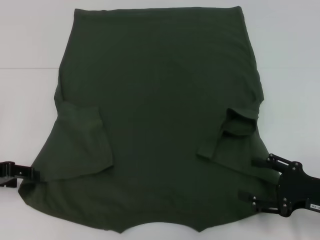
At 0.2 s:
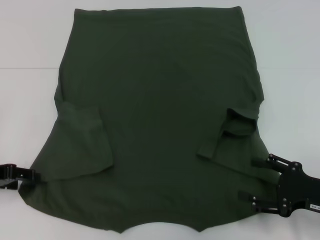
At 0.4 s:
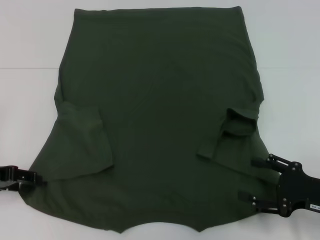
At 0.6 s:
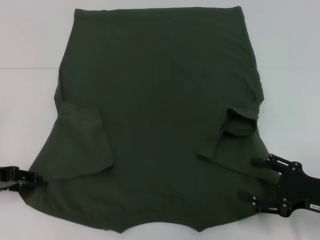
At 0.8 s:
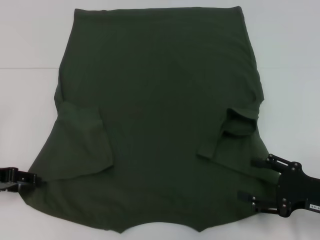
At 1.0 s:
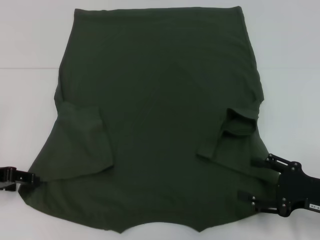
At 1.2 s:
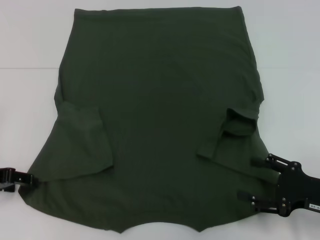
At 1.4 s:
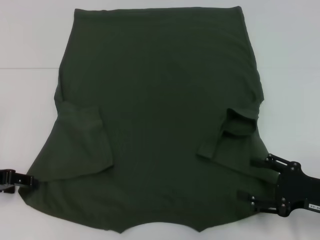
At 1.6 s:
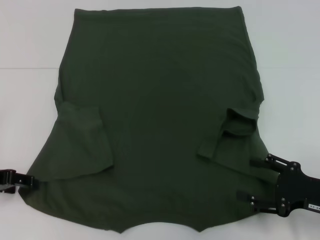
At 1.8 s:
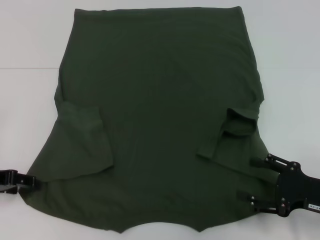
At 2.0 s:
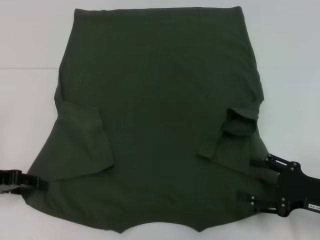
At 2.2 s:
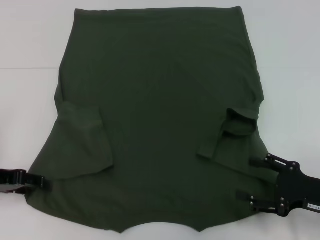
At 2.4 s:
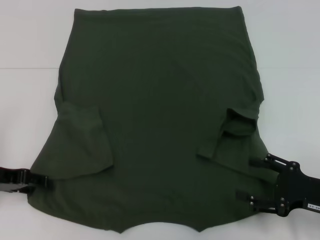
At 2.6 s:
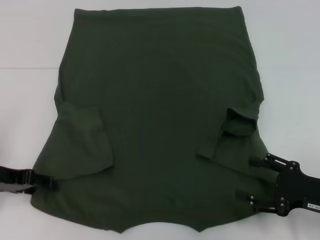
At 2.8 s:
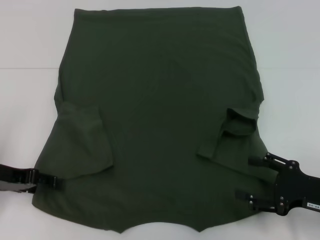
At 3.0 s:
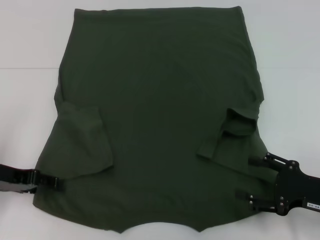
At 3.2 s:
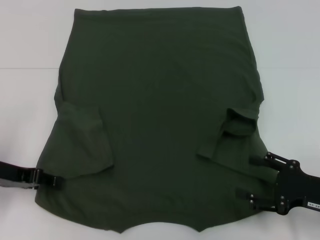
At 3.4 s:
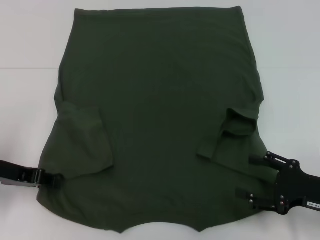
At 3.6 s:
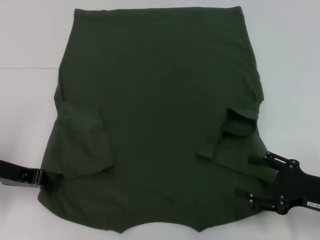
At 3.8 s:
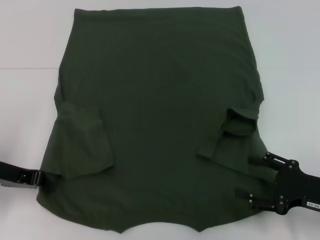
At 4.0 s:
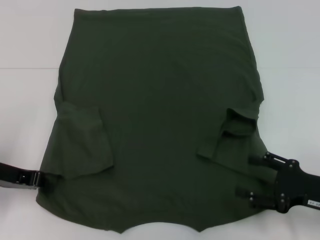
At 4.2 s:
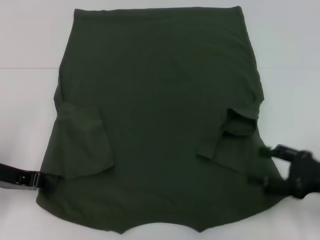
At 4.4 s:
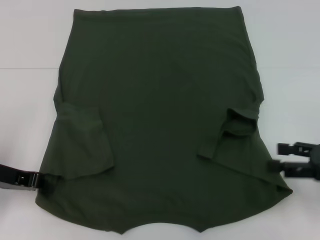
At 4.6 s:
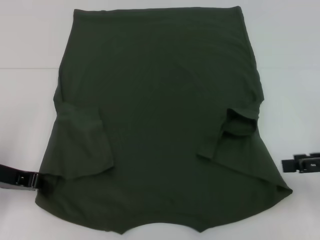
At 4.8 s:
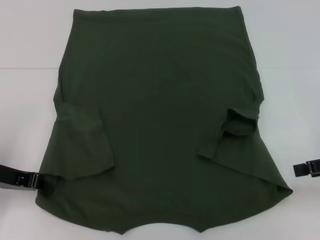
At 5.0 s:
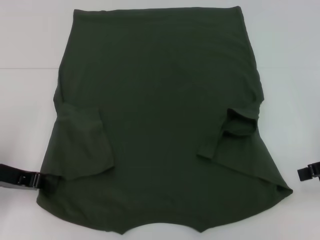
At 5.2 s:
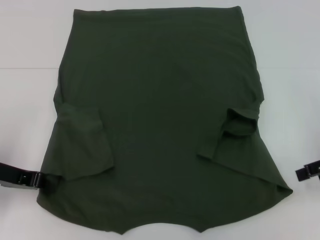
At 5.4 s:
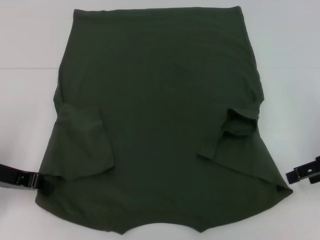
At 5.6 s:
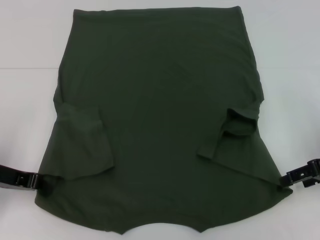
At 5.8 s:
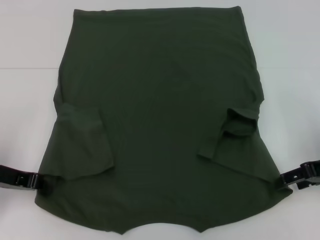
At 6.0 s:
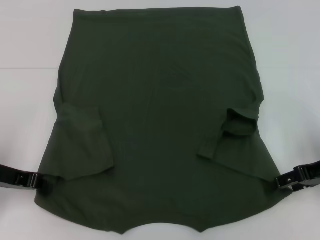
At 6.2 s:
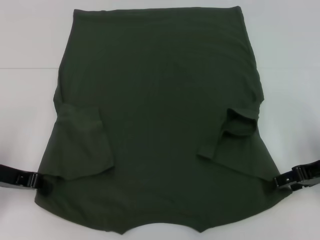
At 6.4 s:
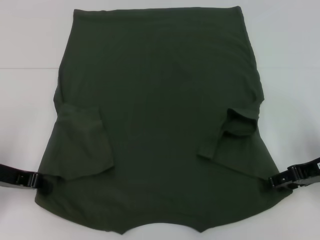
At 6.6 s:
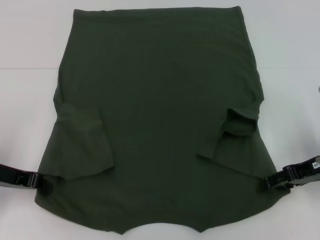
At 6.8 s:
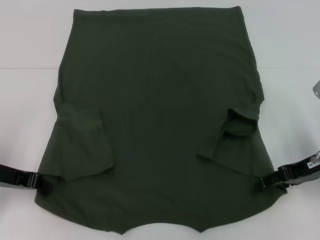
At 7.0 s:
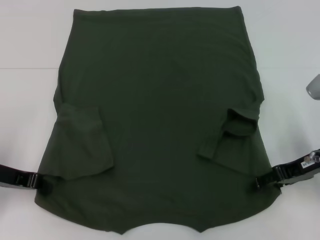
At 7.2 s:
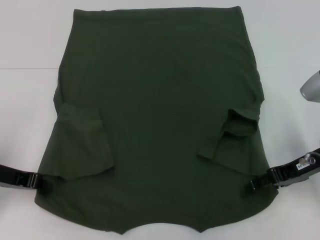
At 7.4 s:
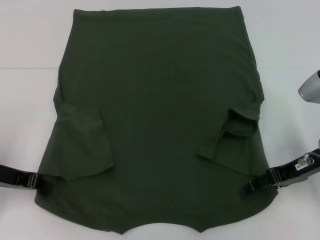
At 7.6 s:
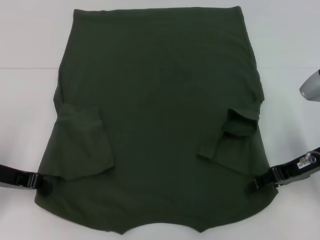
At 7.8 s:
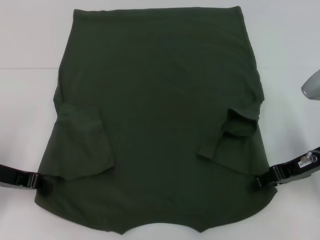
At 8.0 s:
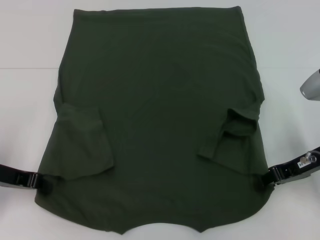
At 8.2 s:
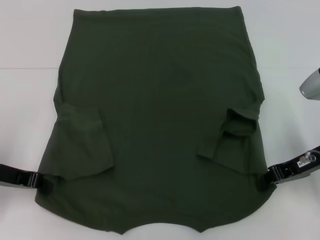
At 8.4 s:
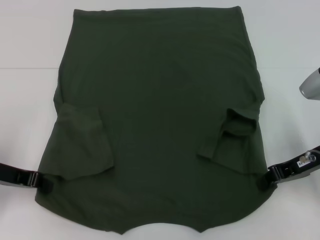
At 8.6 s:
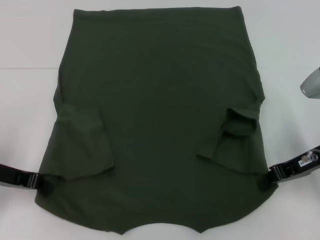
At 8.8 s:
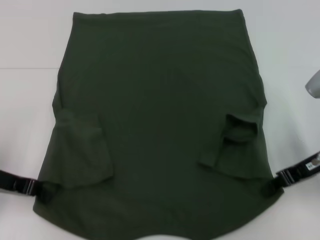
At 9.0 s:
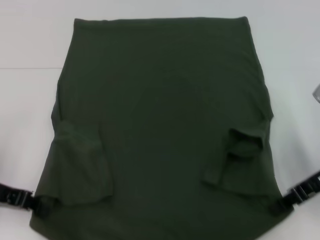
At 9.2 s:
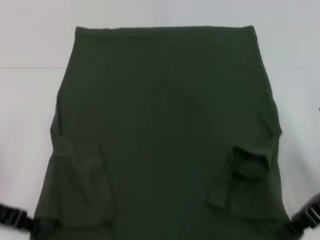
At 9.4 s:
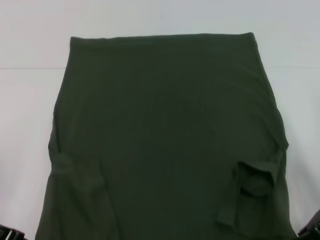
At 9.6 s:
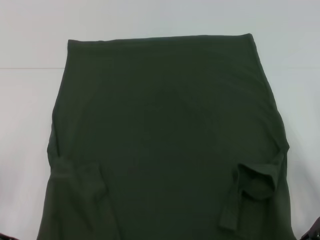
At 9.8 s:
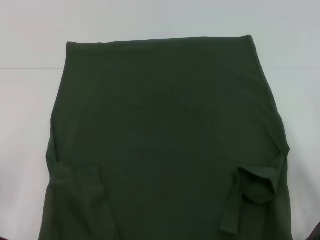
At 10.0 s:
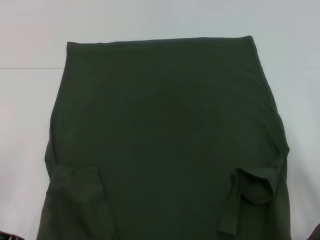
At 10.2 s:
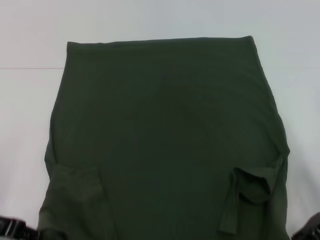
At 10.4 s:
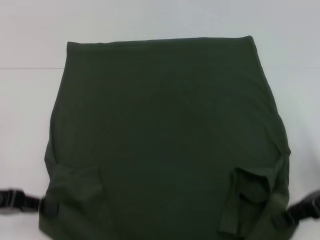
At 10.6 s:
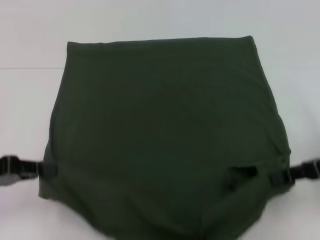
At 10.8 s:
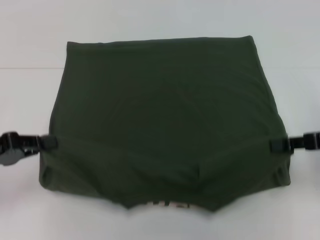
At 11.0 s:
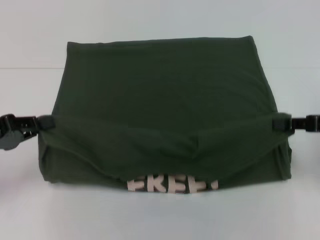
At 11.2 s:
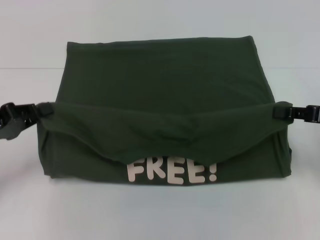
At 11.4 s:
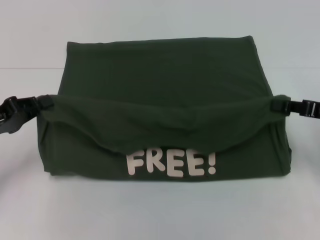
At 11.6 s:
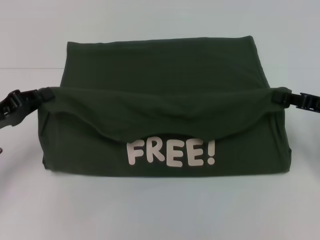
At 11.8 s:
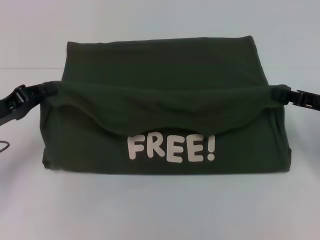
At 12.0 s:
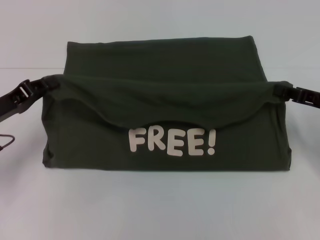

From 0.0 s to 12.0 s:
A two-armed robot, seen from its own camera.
Step, from 0.0 s to 4.4 s: Grab the bottom left corner with your left hand.
Step, from 4.6 s to 8.6 s: Grab the bottom right corner with your right hand.
From 0.0 s to 1.6 s: Neither gripper changes place.
From 1.6 s to 3.0 s: The grippers stay close to where they were, moving slightly.
From 3.0 s to 4.4 s: The left gripper closes up. Meanwhile the right gripper travels upward by roughly 5 cm.
From 4.4 s to 6.0 s: The right gripper moves forward, roughly 5 cm.
From 6.0 s to 7.6 s: The grippers make only small movements.
From 7.6 s to 9.0 s: The right gripper closes its fingers.
From 10.4 s to 12.0 s: Both grippers move forward, about 5 cm.

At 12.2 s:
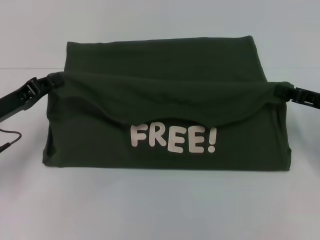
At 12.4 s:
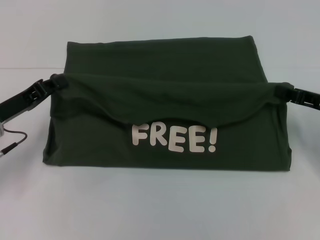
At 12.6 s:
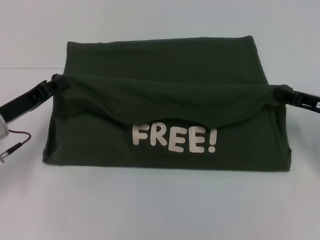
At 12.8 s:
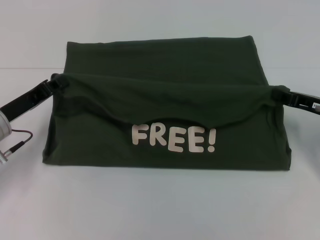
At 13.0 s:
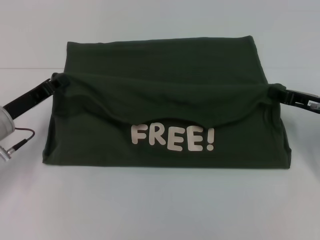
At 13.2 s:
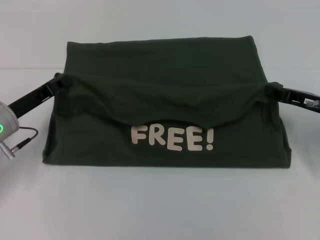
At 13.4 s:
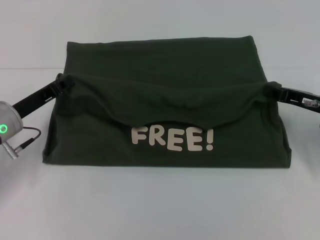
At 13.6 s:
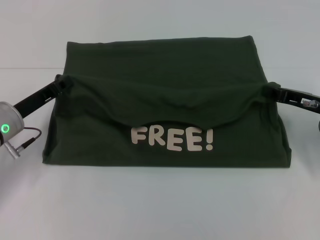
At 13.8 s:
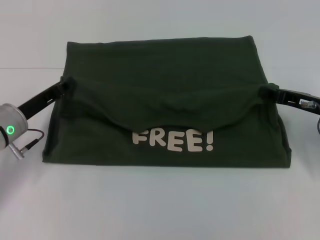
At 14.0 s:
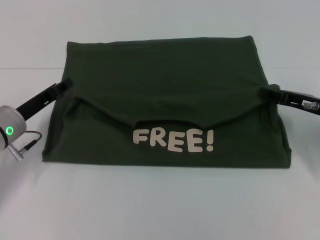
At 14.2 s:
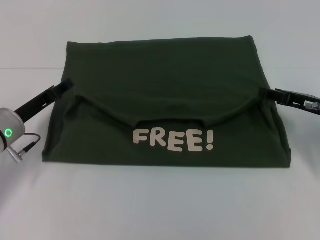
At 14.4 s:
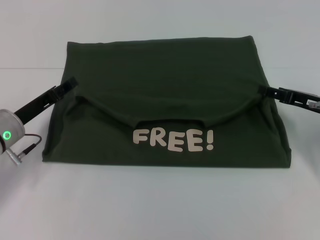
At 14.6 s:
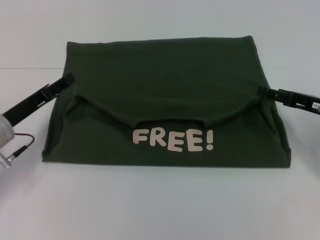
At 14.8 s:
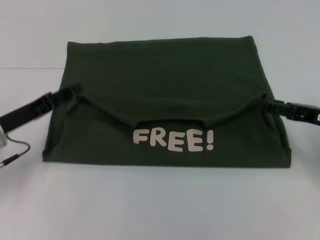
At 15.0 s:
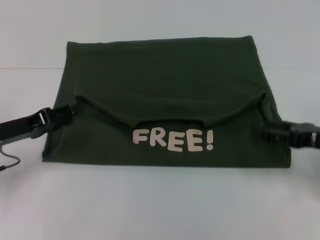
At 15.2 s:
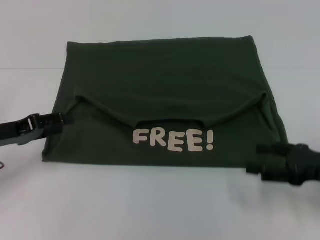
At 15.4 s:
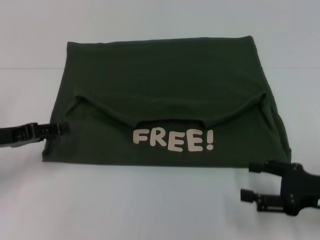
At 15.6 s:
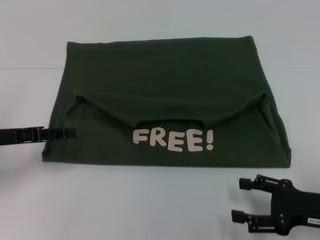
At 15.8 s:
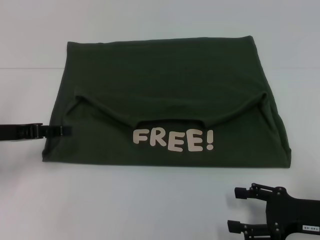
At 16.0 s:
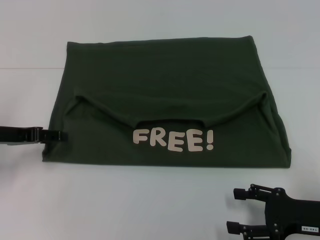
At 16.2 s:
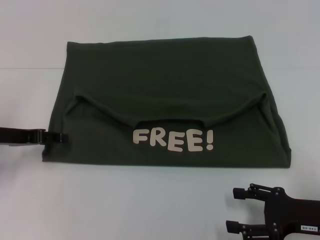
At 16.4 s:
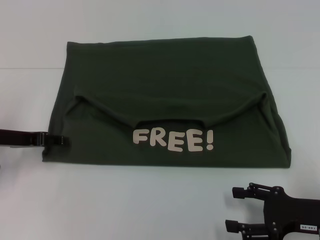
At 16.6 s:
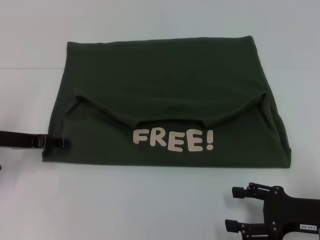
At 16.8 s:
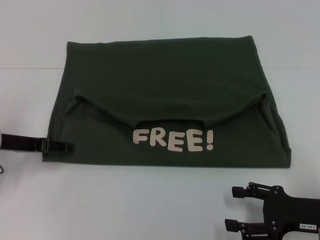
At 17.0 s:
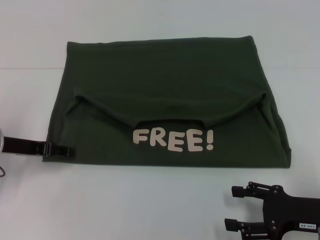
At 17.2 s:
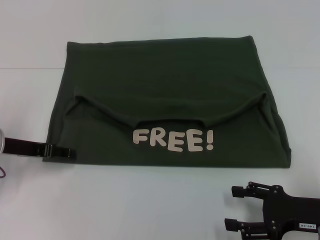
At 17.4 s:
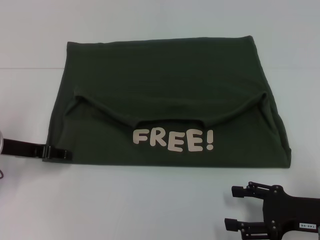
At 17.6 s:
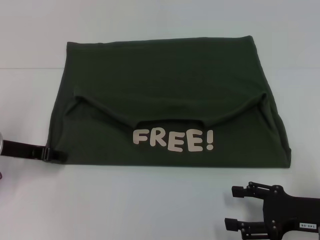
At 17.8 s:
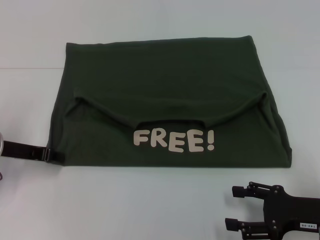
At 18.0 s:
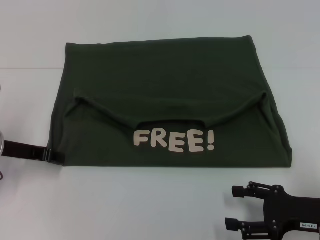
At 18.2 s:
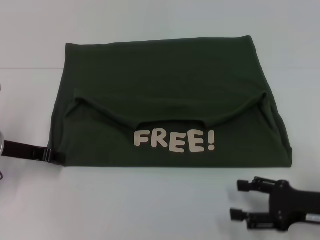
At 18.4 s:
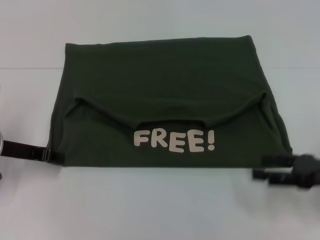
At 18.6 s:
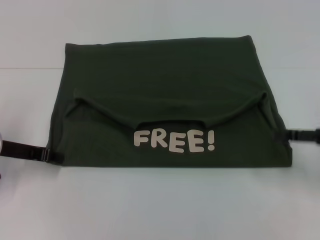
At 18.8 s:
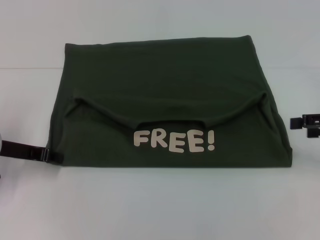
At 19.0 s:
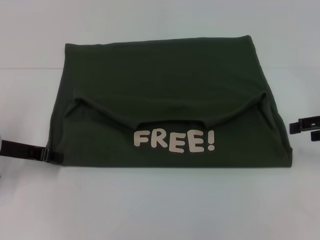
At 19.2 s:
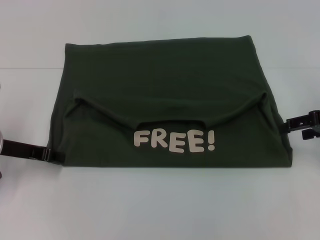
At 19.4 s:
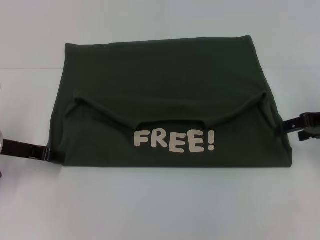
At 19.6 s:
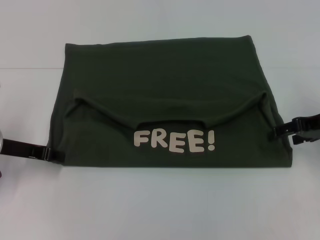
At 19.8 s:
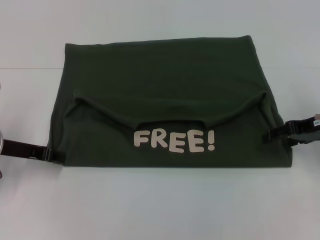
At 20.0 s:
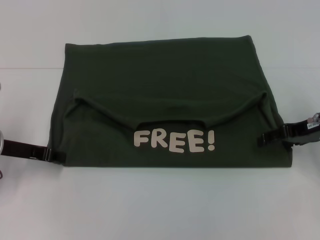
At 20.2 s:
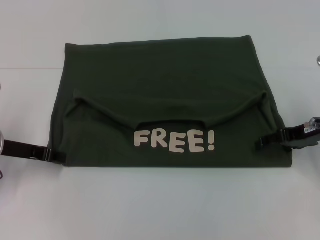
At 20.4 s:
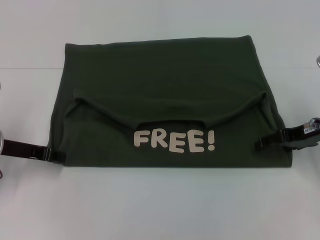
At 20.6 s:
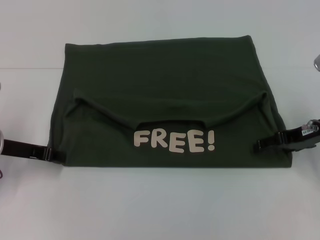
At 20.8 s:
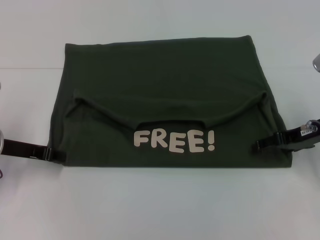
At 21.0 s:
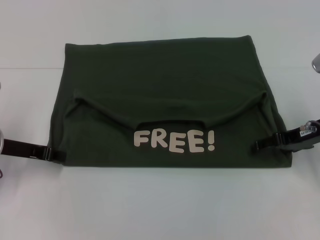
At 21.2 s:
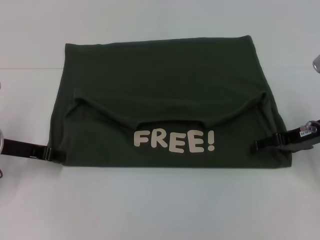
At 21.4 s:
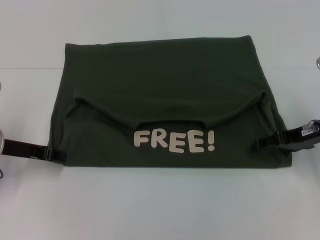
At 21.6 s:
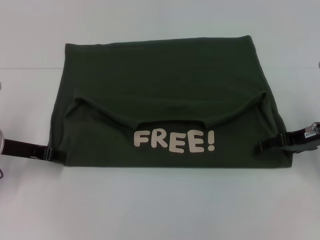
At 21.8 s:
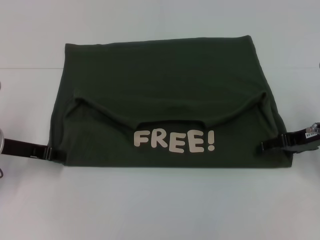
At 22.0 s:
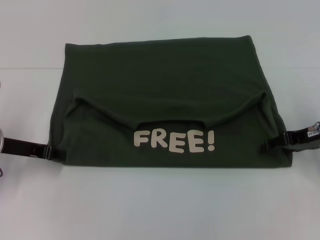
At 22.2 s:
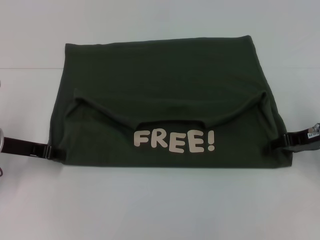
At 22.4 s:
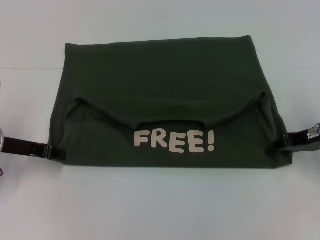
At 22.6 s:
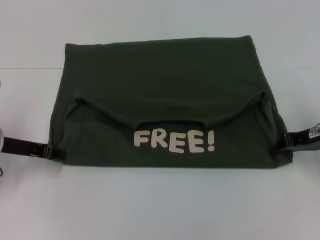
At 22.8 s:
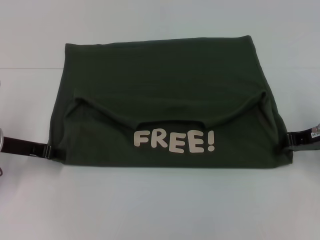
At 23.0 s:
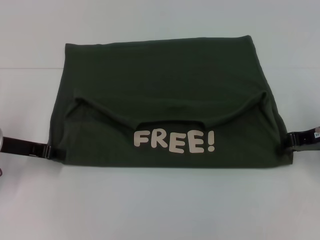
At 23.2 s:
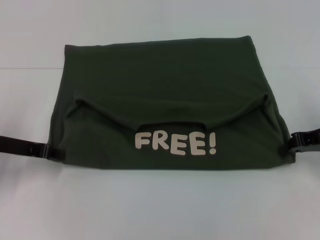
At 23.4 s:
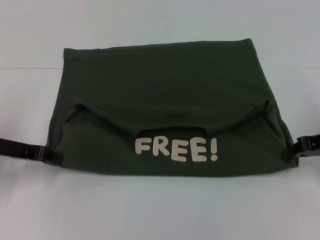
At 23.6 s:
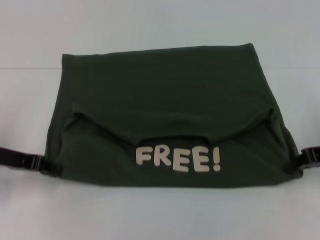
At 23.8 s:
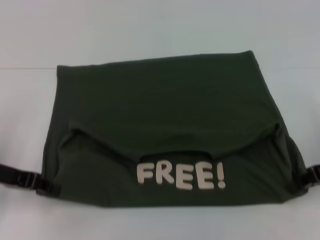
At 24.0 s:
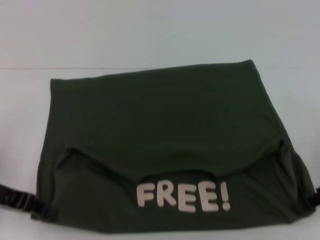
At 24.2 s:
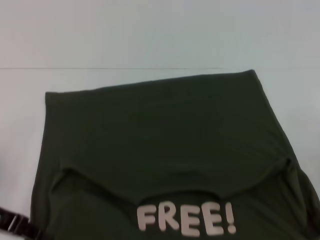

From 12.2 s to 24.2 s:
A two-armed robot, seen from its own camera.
Step, from 12.2 s to 14.2 s: Fold the clothes with your left hand.
Step, from 12.2 s to 14.2 s: Fold the clothes with your right hand.
From 12.2 s to 13.8 s: The left gripper shifts by approximately 5 cm.
From 13.8 s to 15.2 s: The right gripper is displaced backward by about 10 cm, and opens its fingers. The left gripper shifts about 5 cm to the left, and opens its fingers.
From 15.2 s to 16.6 s: The right gripper shifts by roughly 5 cm.
From 16.6 s to 18.2 s: The left gripper closes.
From 18.2 s to 19.8 s: The right gripper heads forward and upward, covering approximately 15 cm.
From 19.8 s to 21.2 s: The grippers make only small movements.
From 21.2 s to 22.6 s: The right gripper closes up.
From 22.6 s to 24.2 s: The two grippers go approximately 5 cm backward.
